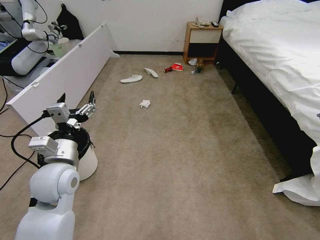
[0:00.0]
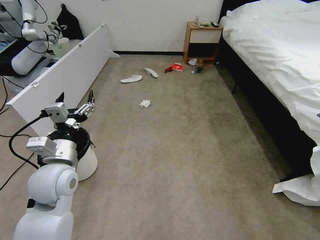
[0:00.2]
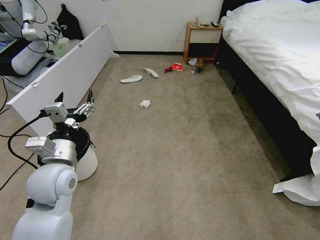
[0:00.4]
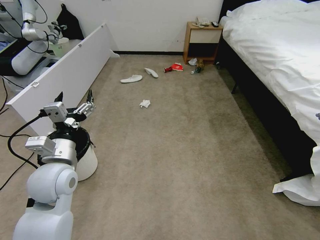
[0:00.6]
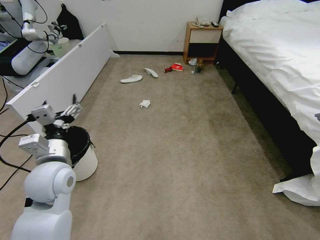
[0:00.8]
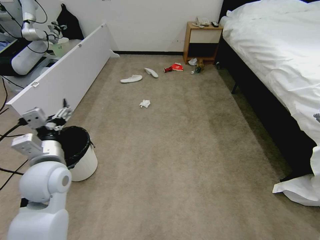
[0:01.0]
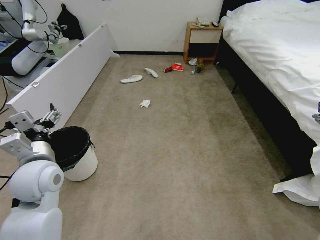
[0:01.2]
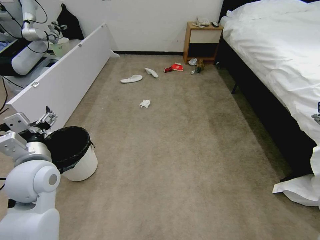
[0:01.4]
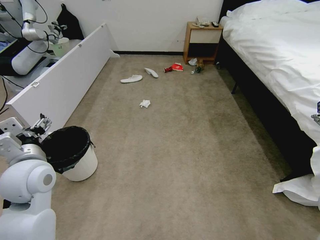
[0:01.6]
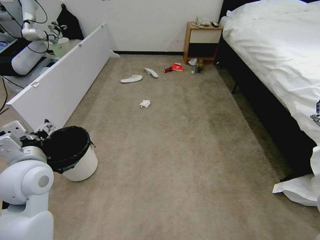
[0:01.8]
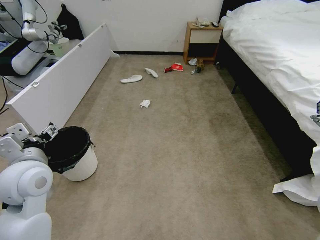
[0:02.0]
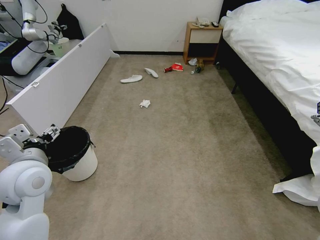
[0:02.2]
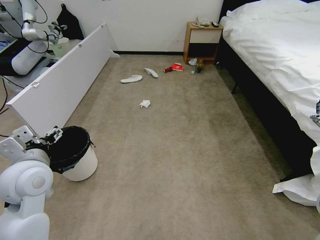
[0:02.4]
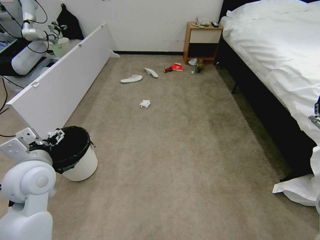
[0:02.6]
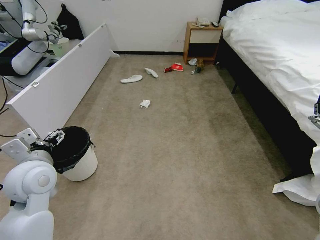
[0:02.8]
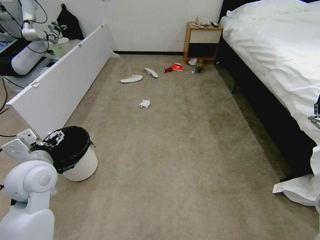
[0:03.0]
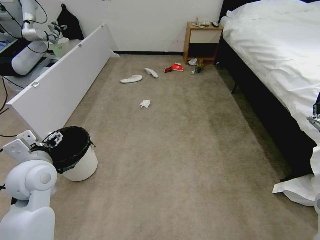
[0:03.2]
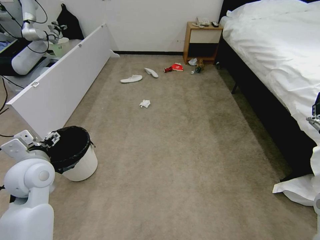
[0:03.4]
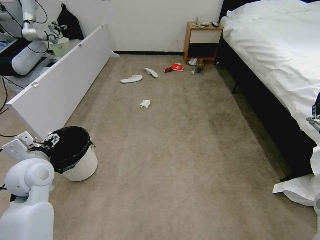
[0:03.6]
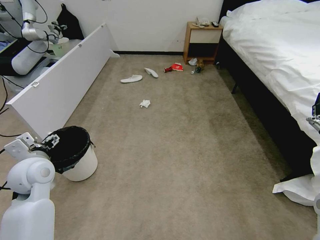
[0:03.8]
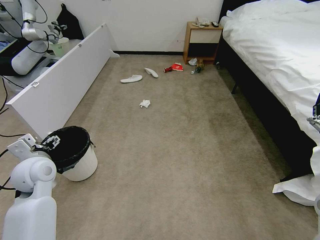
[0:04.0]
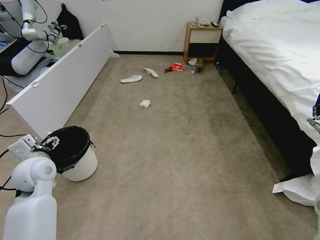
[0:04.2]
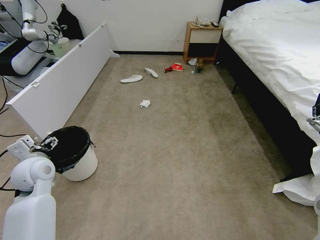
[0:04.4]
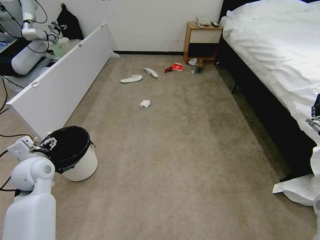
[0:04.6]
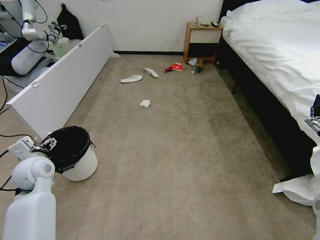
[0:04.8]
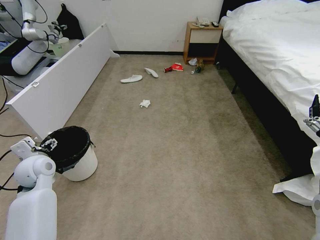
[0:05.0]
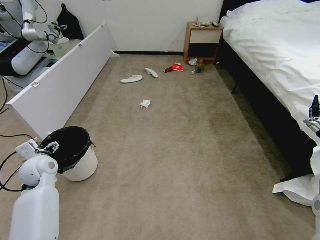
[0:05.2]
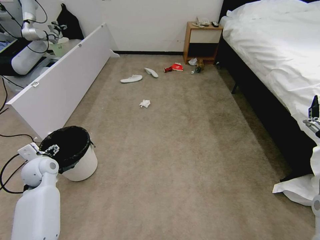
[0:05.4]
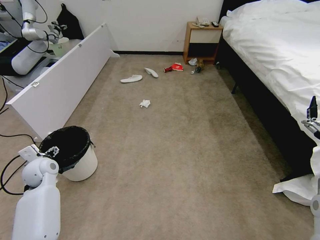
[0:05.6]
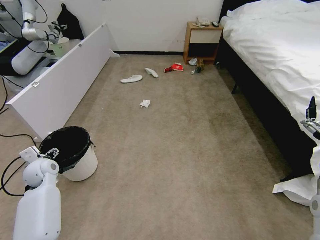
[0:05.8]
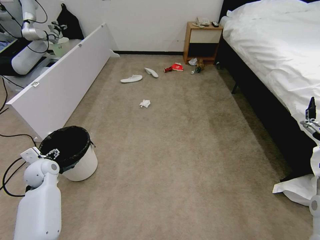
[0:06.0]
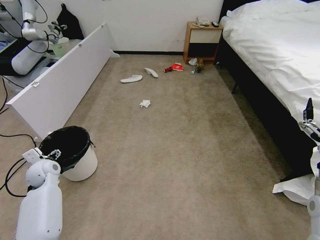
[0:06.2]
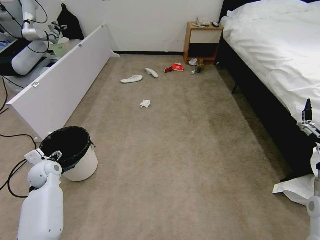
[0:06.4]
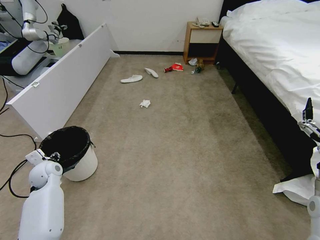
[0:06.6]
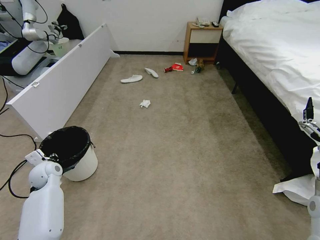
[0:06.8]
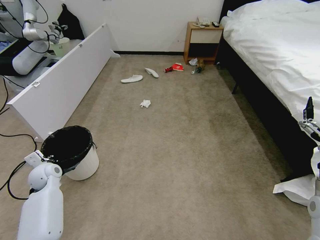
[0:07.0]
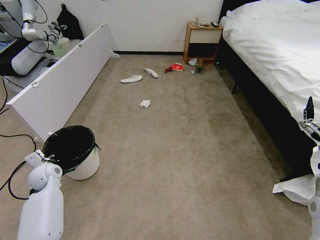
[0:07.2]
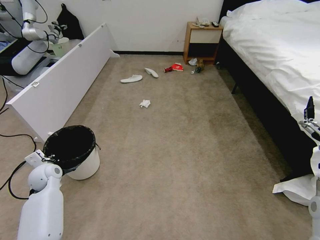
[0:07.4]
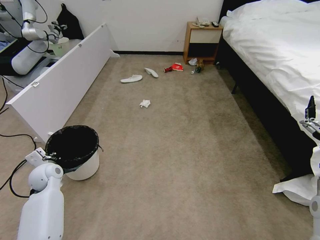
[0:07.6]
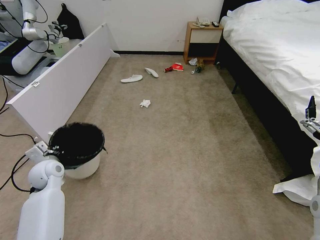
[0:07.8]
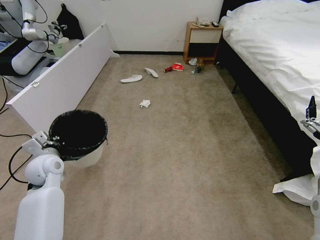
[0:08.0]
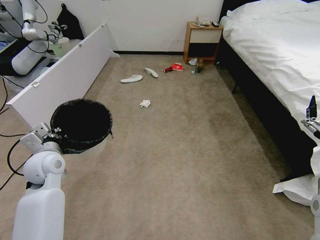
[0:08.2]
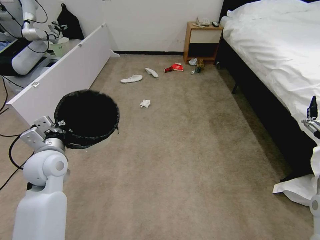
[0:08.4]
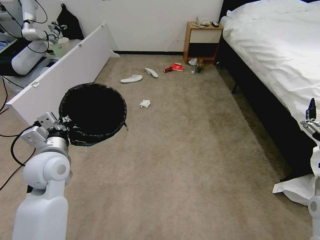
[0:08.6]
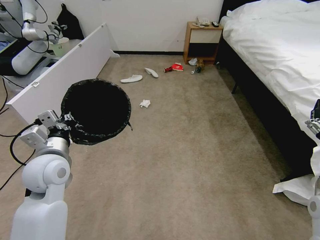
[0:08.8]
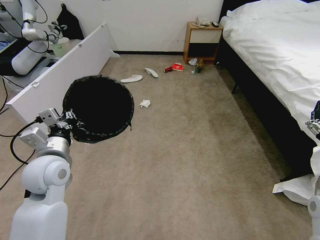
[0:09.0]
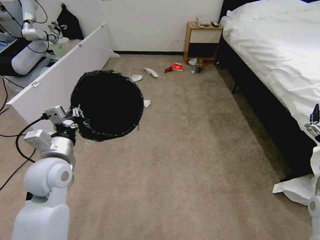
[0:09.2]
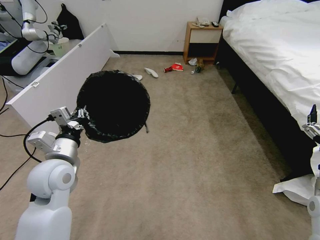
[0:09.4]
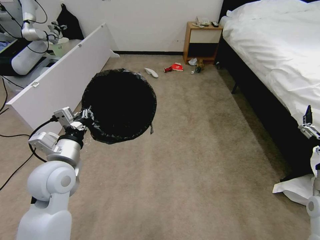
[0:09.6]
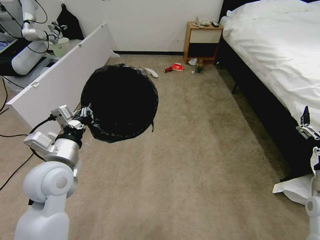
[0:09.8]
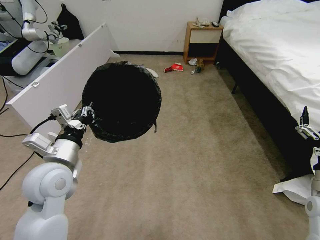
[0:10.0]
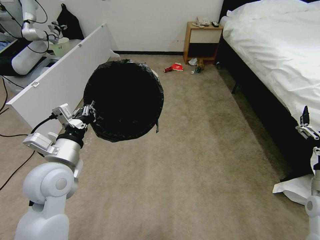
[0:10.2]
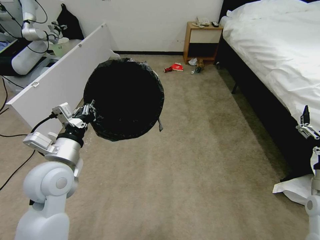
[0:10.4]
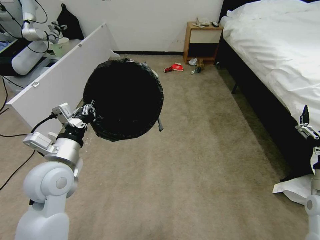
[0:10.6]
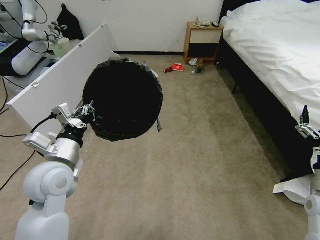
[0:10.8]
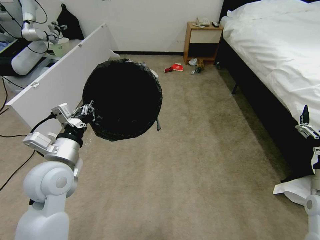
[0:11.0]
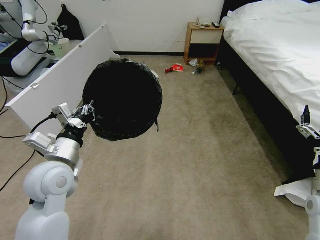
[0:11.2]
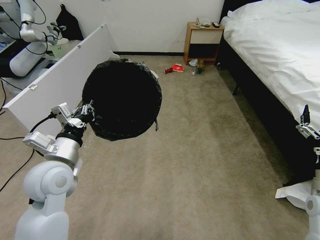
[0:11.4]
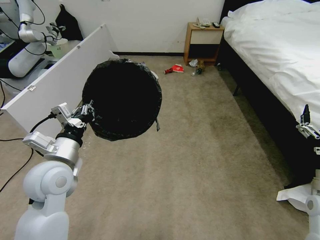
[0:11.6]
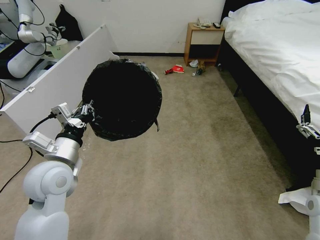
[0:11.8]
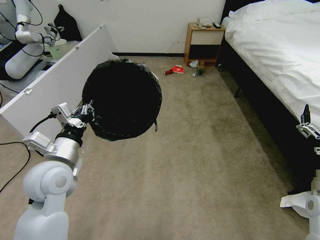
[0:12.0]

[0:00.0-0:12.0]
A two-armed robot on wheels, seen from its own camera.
Task of the whole recording: Pick up the trash bin, then pick up the garbage from the floor and place it into the trash bin.
0:01.6 to 0:03.0: The grippers make only small movements.
0:03.0 to 0:04.4: The left gripper heads to the left and downward, covering about 10 cm.
0:04.4 to 0:06.0: The left gripper shifts roughly 10 cm downward, to the left and forward.
0:06.0 to 0:07.6: The left gripper closes.
0:07.6 to 0:09.0: The left gripper moves upward, to the right and backward, roughly 20 cm.
0:10.4 to 0:12.0: Neither gripper changes place.

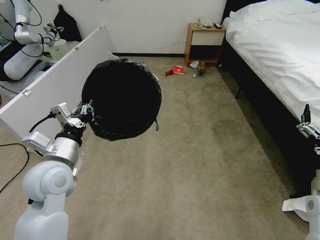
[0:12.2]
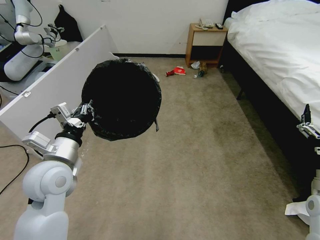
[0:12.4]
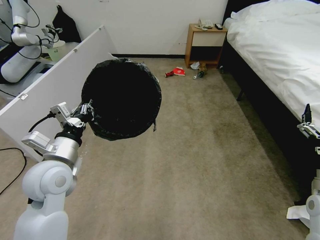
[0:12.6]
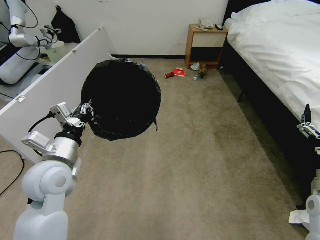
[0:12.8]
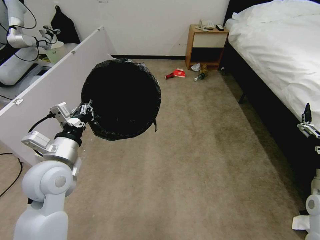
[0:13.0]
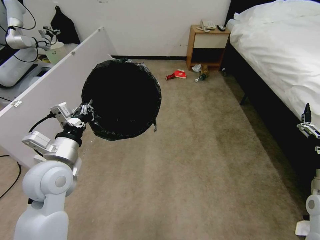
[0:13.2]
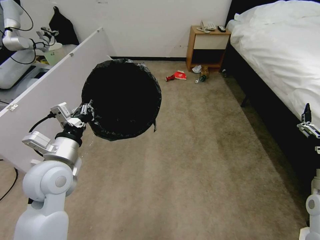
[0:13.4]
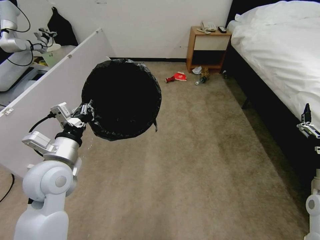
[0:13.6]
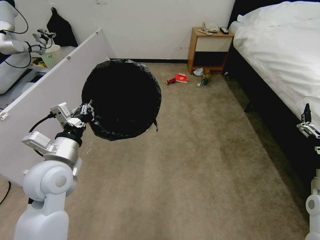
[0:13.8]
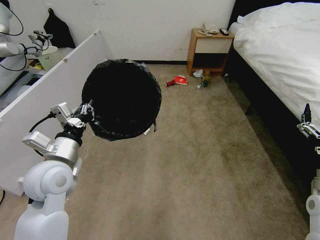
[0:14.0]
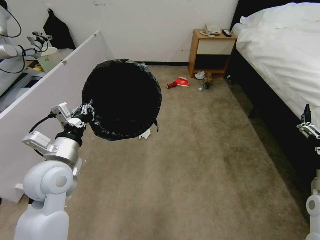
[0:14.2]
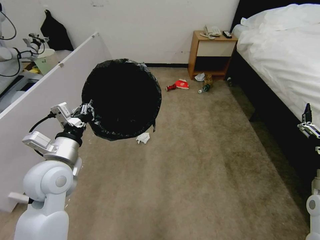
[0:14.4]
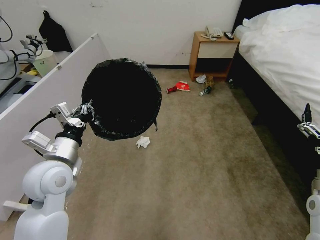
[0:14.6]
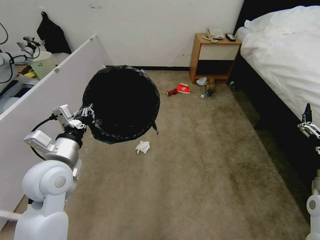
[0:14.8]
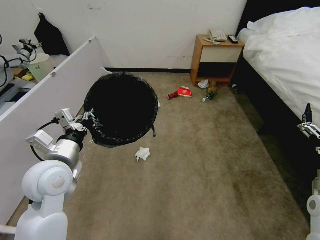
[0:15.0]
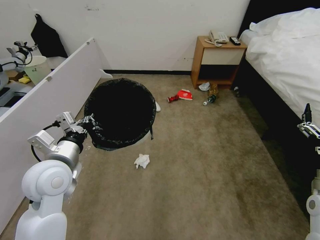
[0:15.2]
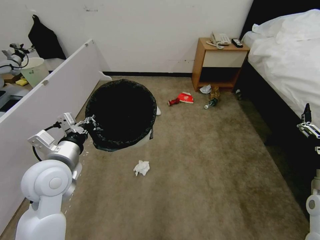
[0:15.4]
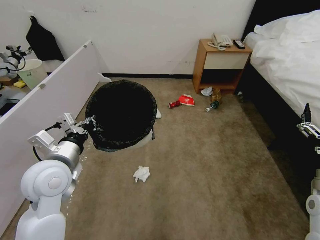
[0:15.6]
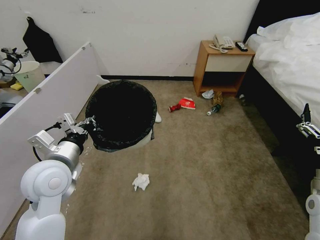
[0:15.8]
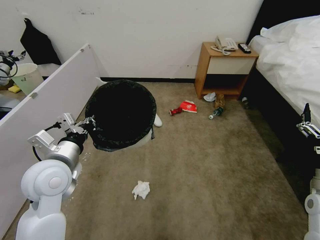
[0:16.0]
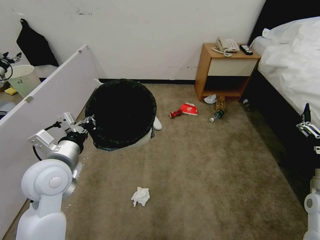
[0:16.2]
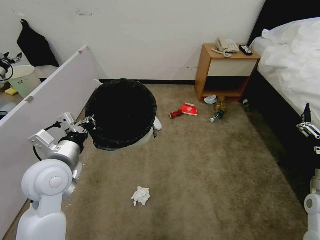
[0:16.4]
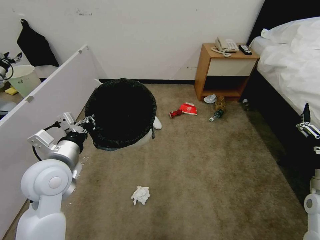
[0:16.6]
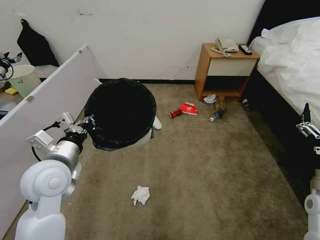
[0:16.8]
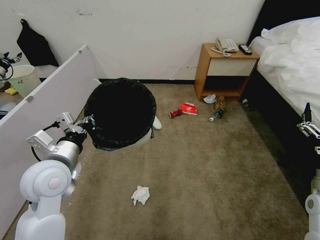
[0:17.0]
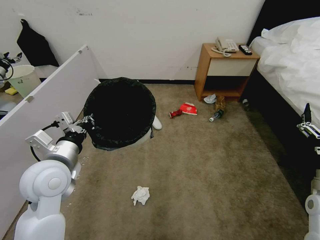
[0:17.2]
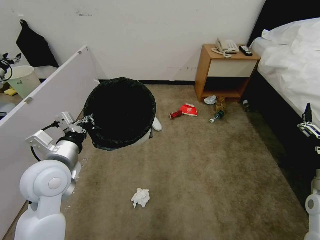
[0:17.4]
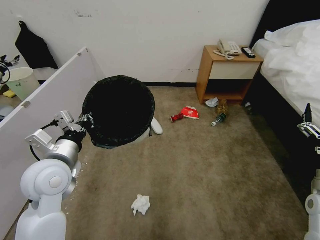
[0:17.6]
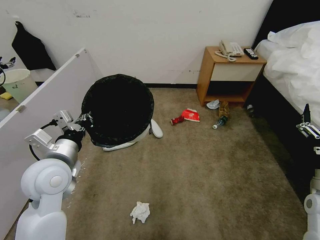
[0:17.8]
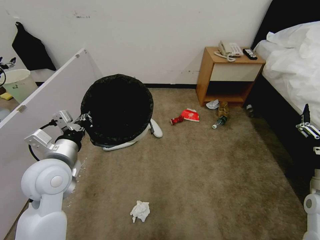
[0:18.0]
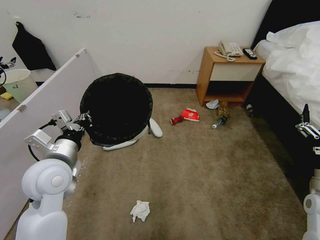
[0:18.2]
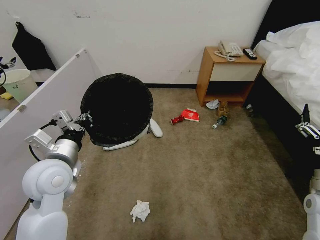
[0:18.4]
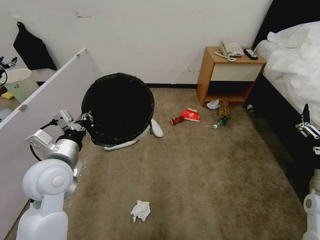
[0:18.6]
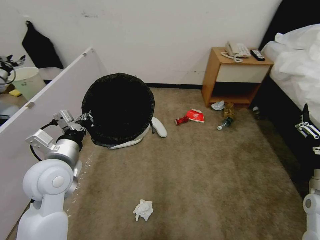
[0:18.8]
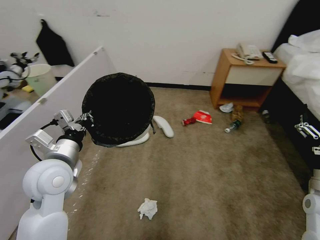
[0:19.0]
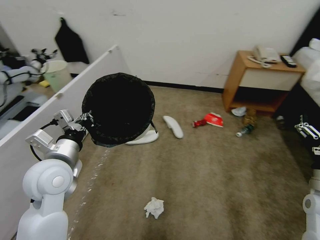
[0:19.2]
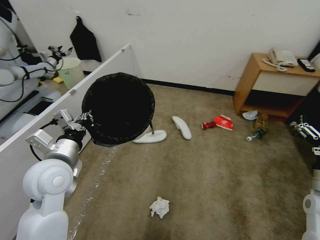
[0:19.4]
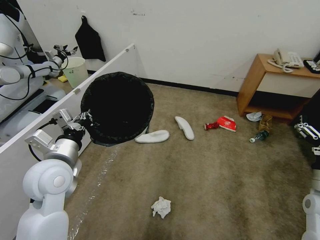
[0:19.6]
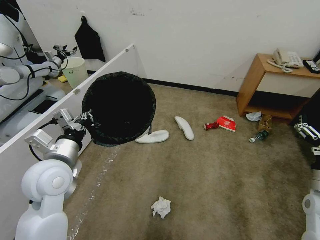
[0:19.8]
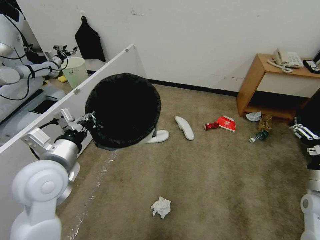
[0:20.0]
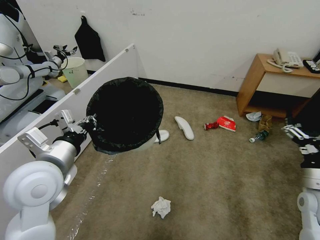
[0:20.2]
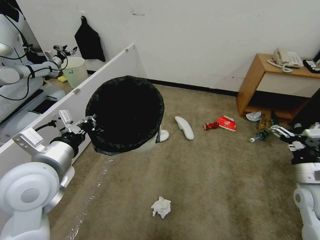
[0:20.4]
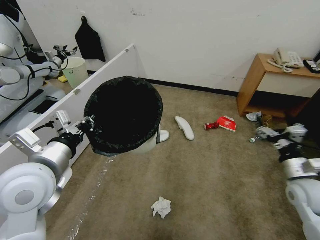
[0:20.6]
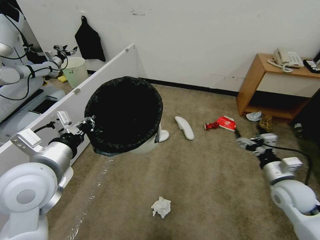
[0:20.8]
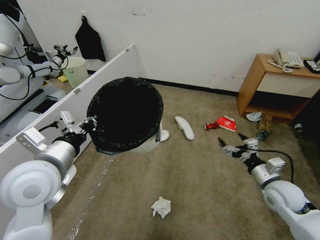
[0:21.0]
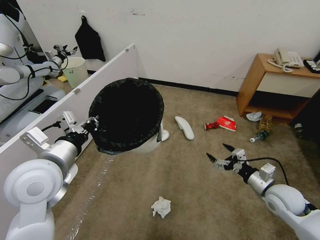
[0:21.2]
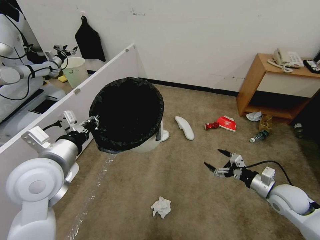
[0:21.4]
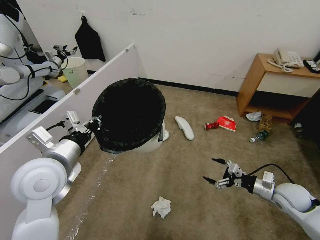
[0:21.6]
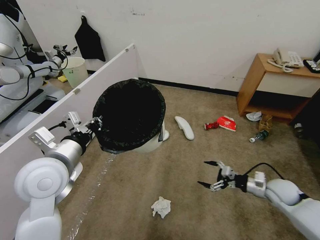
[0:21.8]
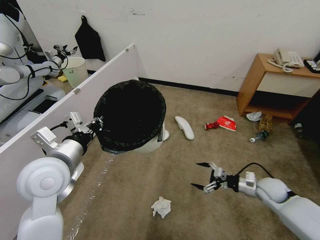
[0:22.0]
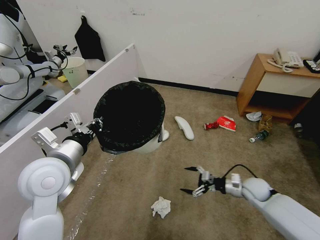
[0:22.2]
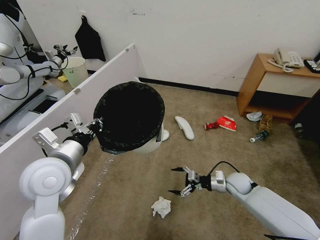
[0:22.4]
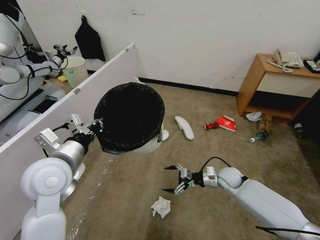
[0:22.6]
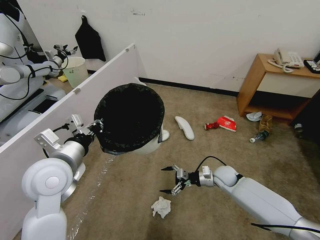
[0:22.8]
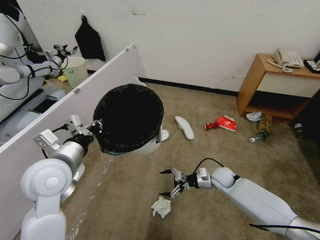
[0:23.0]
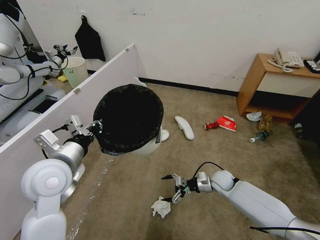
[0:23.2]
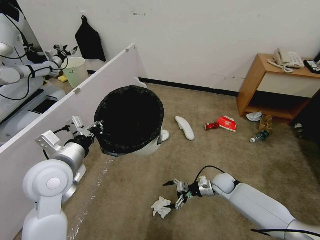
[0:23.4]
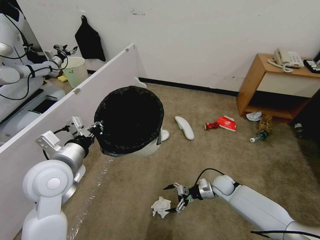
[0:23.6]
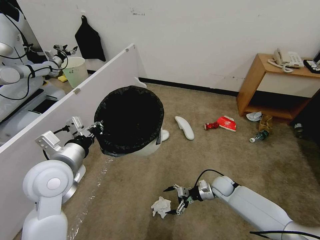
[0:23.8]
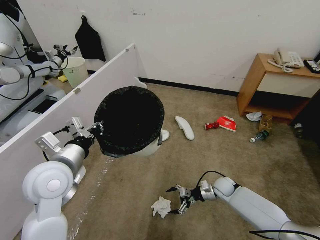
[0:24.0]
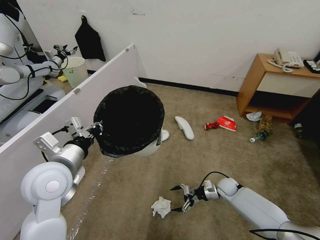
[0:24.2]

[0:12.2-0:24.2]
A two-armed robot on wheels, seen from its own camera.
Task of the whole recording: Pick up the trash bin, then pick up the garbage from the floor and place it into the trash bin.
0:12.2 to 0:13.8: Both grippers stay put.
0:15.2 to 0:18.2: The two grippers keep their place.
0:19.8 to 0:21.2: The right gripper goes approximately 10 cm downward and forward.
0:21.2 to 0:22.6: The right gripper is displaced forward, to the left and downward by some 15 cm.
0:22.6 to 0:24.2: The right gripper heads downward, covering approximately 10 cm.
